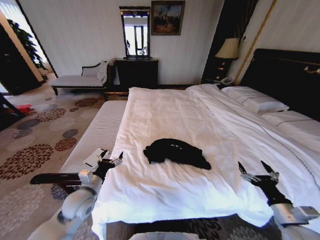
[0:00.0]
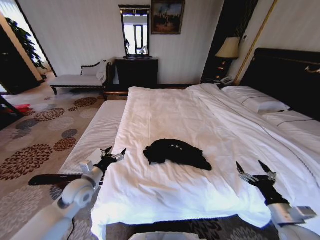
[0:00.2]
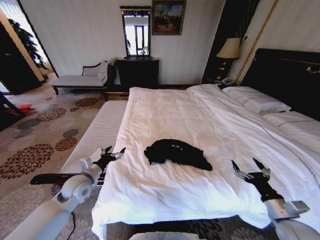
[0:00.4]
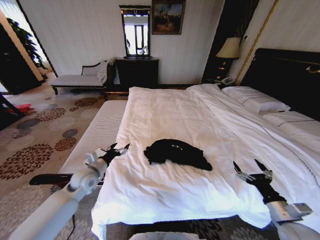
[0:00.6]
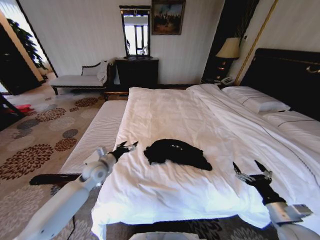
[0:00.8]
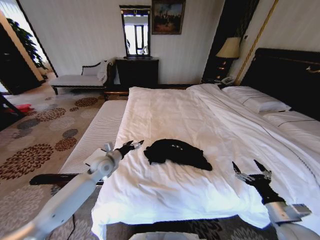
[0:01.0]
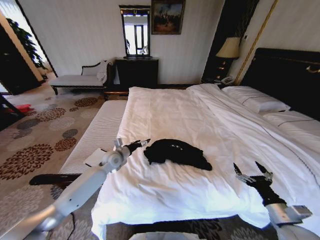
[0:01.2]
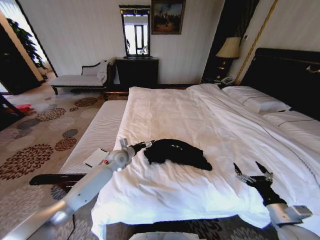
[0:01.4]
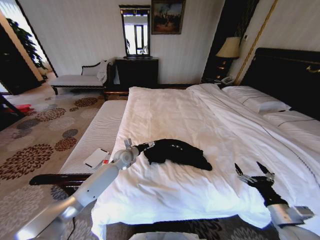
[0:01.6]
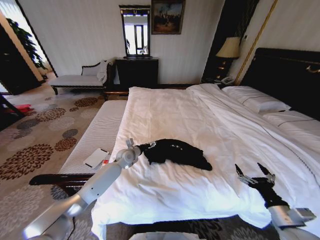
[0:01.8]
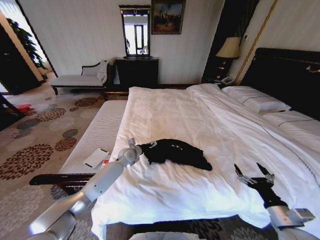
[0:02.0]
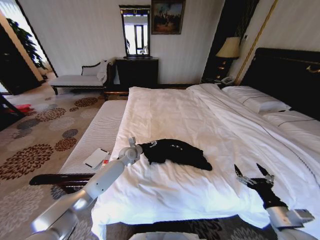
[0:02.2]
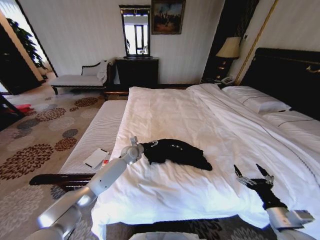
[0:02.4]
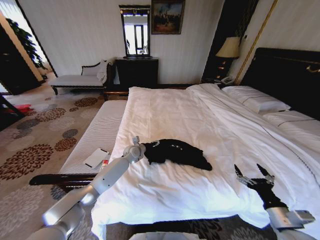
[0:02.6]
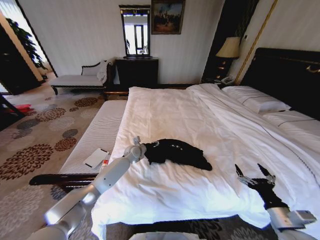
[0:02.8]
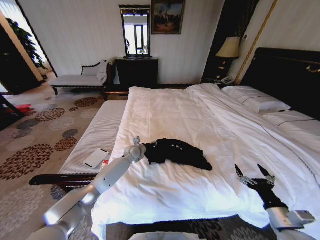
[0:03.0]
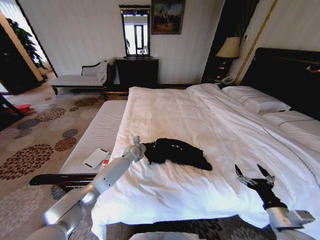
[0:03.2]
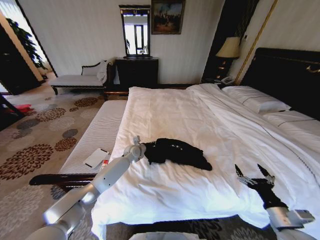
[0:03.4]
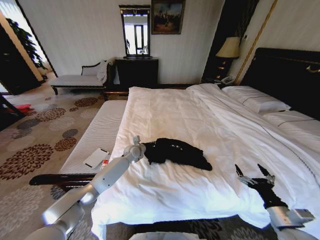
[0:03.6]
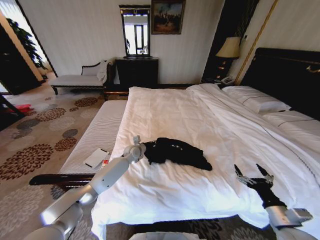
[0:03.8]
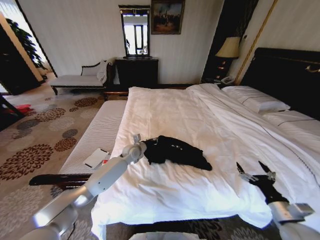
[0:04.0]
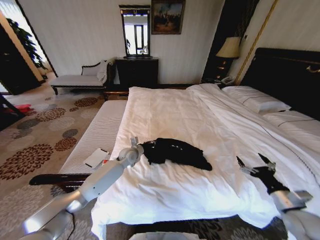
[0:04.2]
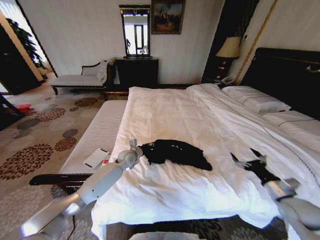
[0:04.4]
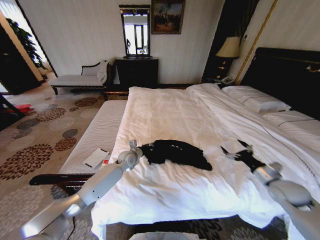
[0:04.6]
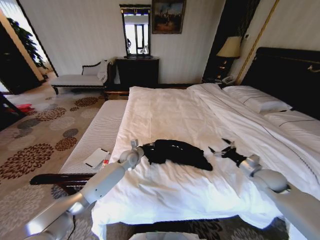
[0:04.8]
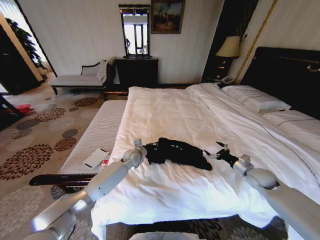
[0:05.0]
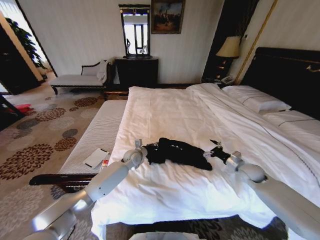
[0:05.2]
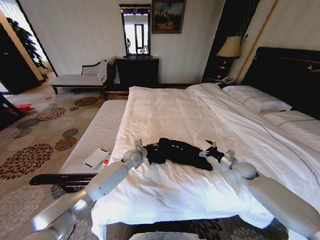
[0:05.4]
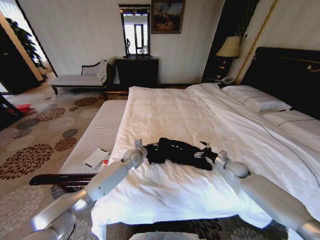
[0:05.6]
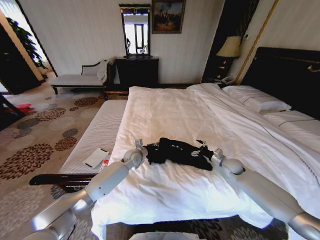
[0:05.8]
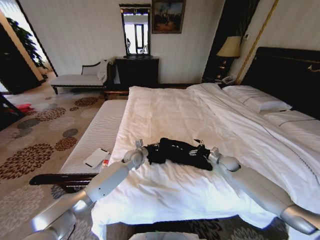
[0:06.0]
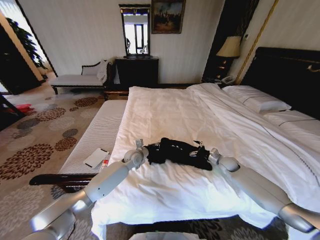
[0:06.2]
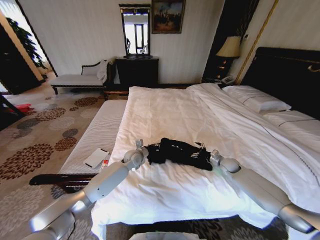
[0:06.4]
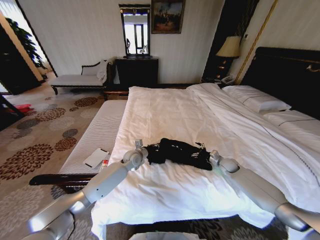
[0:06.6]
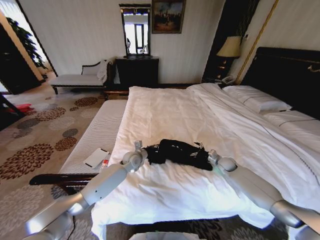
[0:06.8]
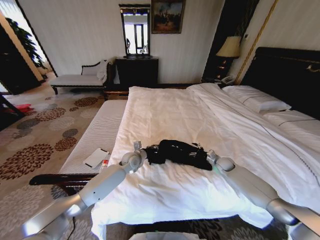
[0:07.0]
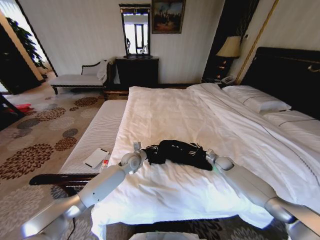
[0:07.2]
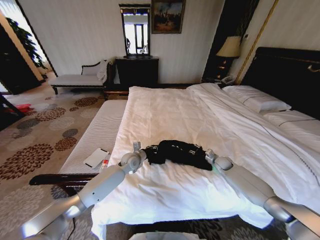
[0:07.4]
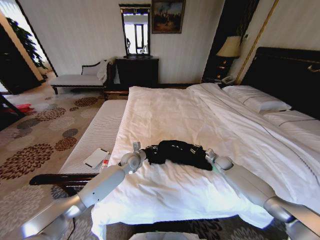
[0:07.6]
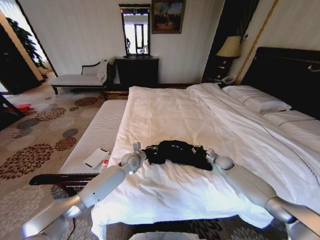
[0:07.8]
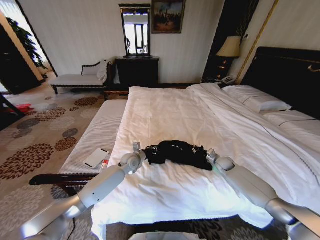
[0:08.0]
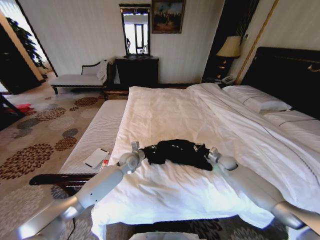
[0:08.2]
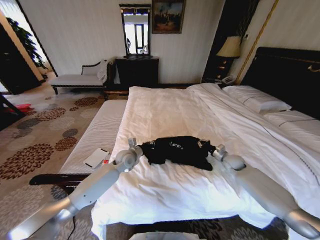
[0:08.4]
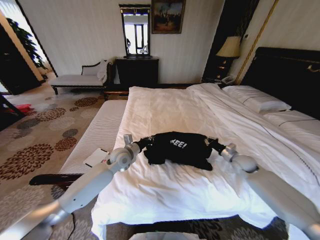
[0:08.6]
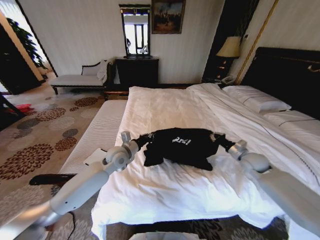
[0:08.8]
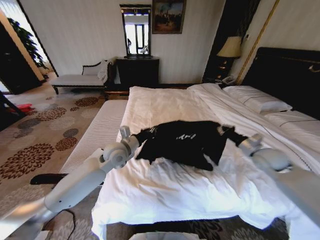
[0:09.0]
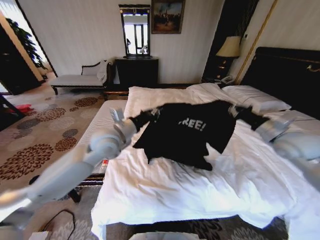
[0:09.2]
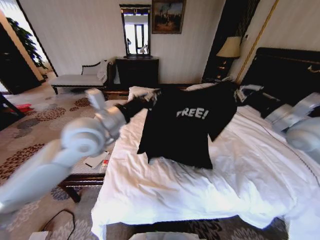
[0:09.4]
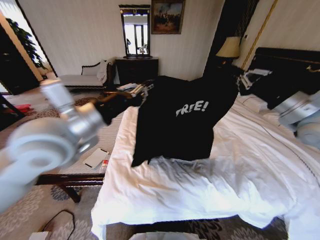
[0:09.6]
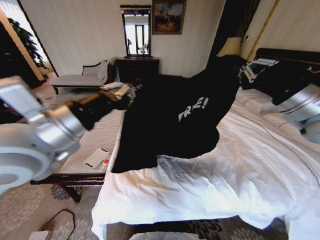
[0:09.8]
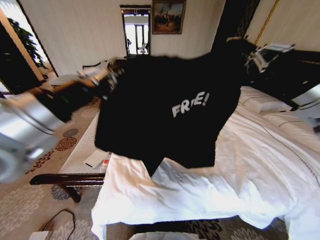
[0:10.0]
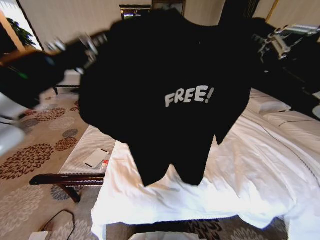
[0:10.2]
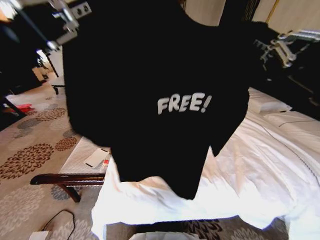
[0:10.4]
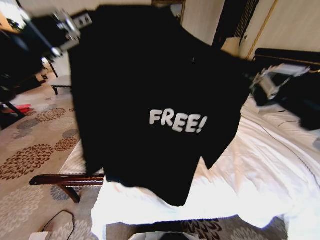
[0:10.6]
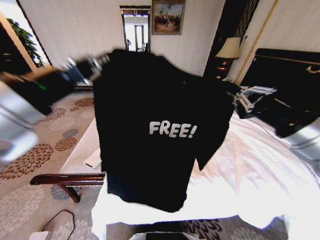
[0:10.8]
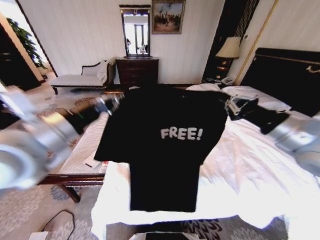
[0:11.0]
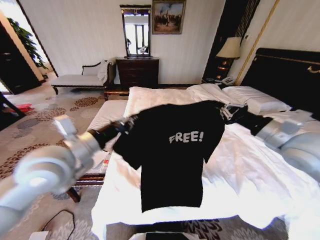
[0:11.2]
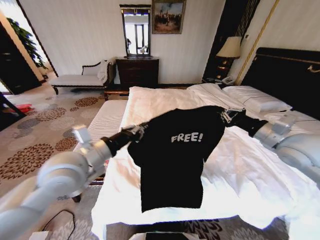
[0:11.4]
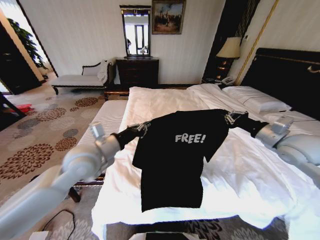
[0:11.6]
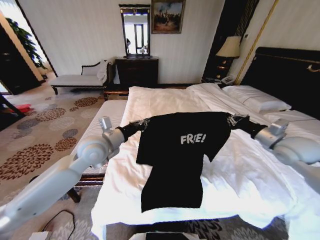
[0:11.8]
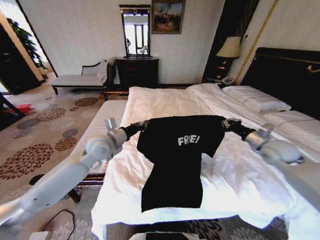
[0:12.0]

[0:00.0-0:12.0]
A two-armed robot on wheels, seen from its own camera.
Task of the whole recording: Fold the clothes on the bed.
0:00.0 to 0:01.6: The left gripper travels forward and to the right by approximately 25 cm.
0:01.6 to 0:03.0: The left gripper changes place by about 5 cm, and closes its fingers.
0:03.0 to 0:04.4: The left gripper changes place by roughly 5 cm. The right gripper goes some 10 cm forward and to the right.
0:04.4 to 0:06.0: The right gripper travels forward by approximately 25 cm.
0:06.0 to 0:07.6: The right gripper closes.
0:07.6 to 0:09.0: The left gripper is displaced upward by roughly 15 cm. Meanwhile the right gripper travels upward and backward by about 25 cm.
0:09.0 to 0:10.4: Both grippers move upward, backward and to the left, about 35 cm.
0:10.4 to 0:12.0: The left gripper travels downward and forward by some 35 cm. Meanwhile the right gripper travels downward, forward and to the right by approximately 30 cm.

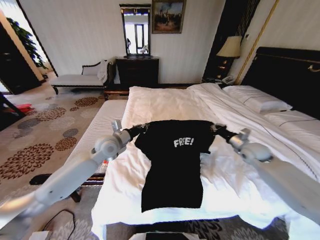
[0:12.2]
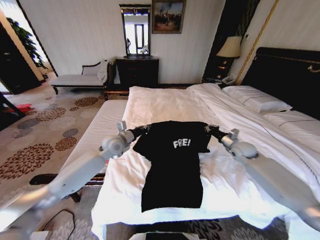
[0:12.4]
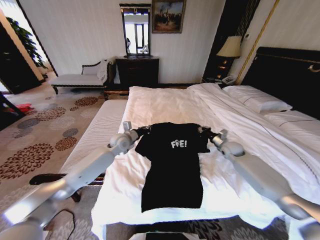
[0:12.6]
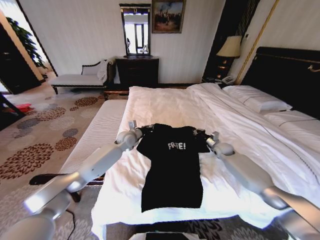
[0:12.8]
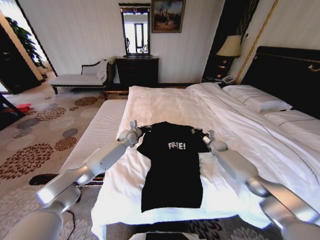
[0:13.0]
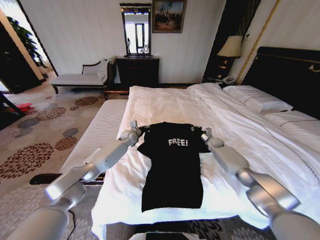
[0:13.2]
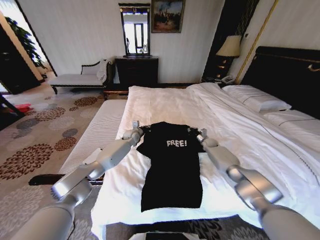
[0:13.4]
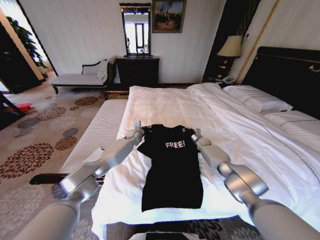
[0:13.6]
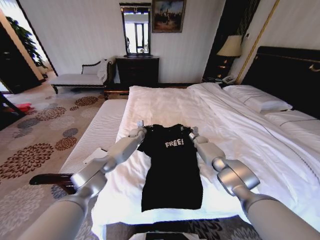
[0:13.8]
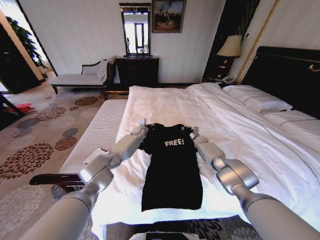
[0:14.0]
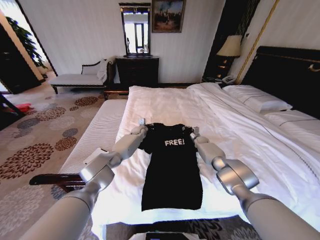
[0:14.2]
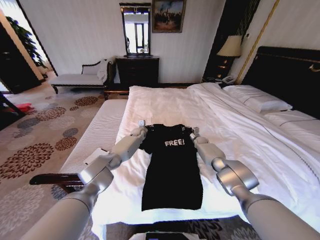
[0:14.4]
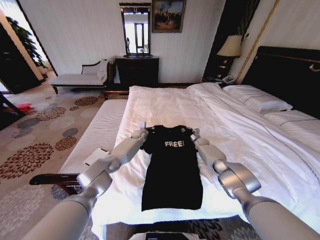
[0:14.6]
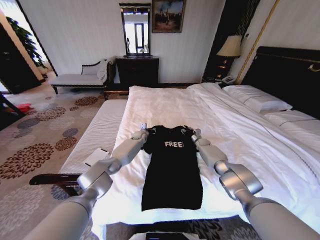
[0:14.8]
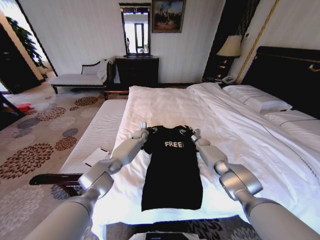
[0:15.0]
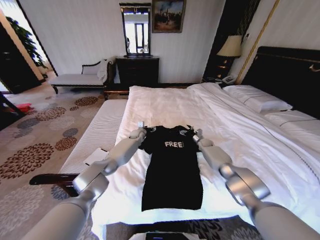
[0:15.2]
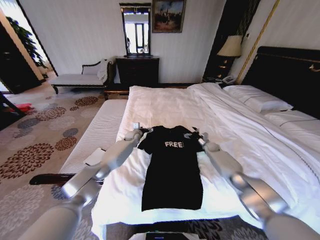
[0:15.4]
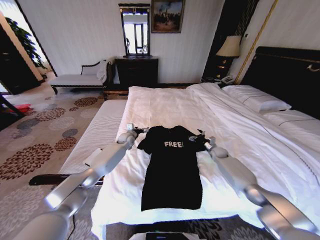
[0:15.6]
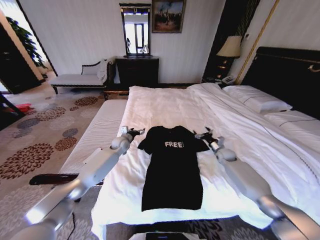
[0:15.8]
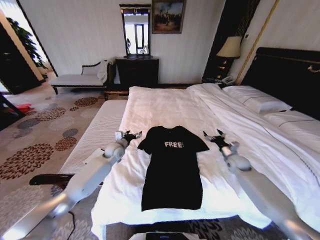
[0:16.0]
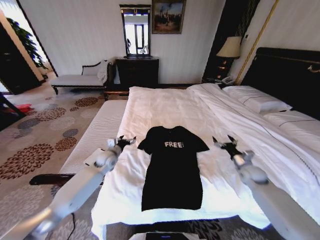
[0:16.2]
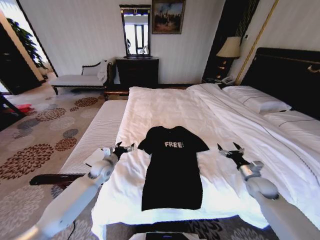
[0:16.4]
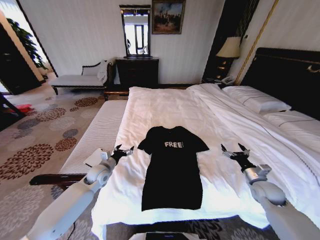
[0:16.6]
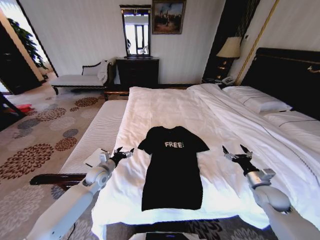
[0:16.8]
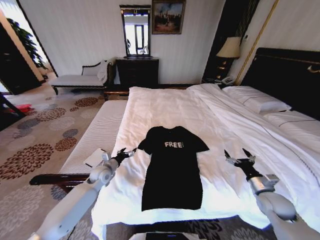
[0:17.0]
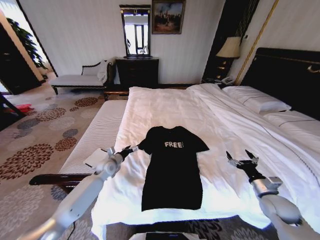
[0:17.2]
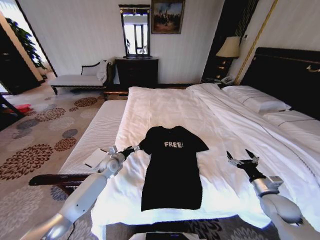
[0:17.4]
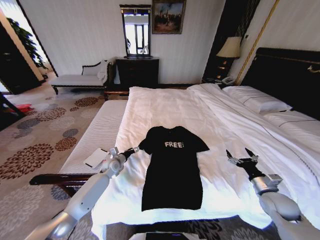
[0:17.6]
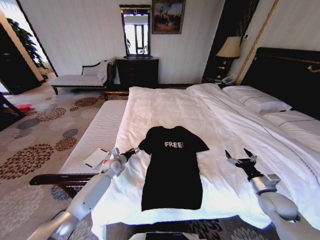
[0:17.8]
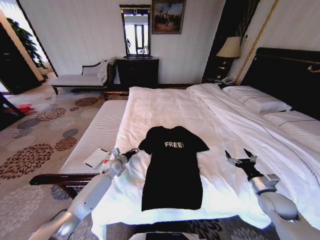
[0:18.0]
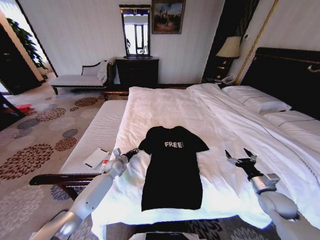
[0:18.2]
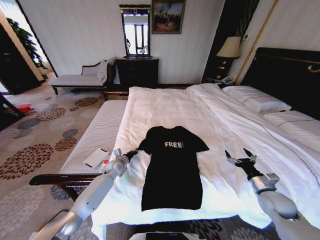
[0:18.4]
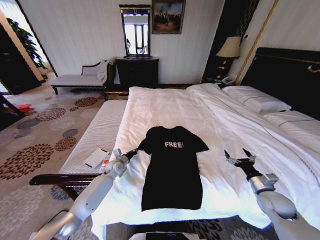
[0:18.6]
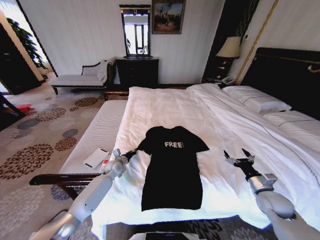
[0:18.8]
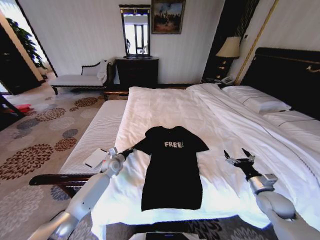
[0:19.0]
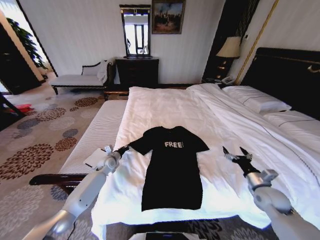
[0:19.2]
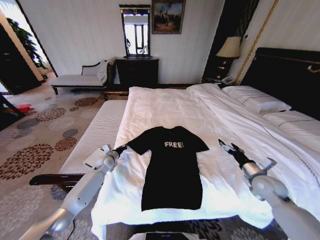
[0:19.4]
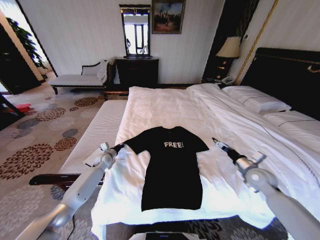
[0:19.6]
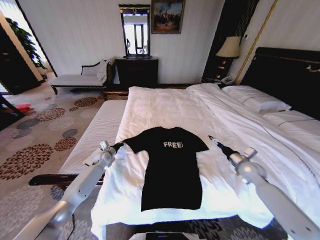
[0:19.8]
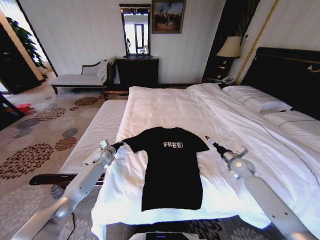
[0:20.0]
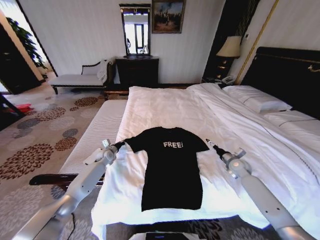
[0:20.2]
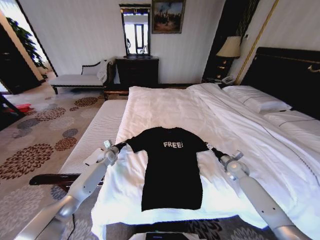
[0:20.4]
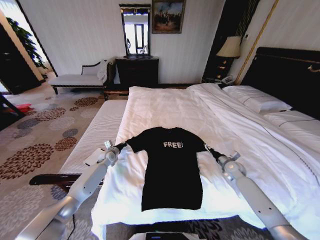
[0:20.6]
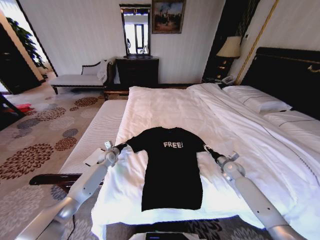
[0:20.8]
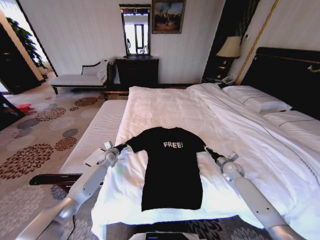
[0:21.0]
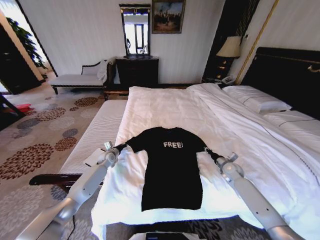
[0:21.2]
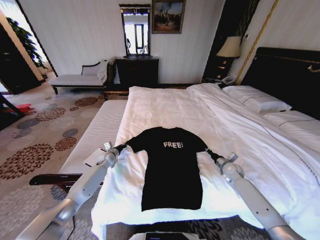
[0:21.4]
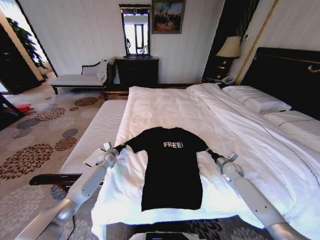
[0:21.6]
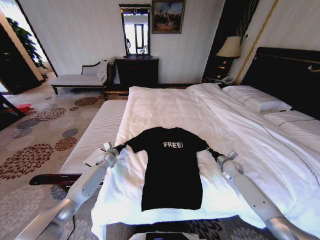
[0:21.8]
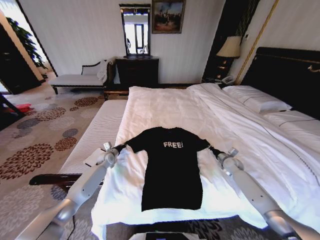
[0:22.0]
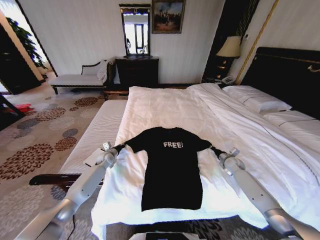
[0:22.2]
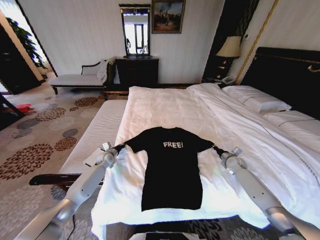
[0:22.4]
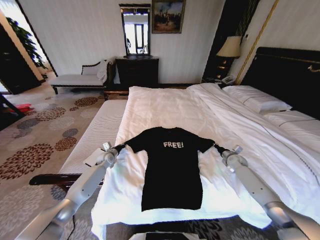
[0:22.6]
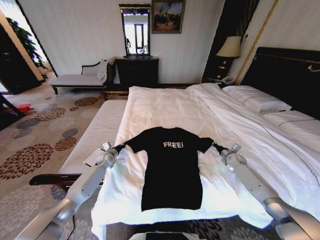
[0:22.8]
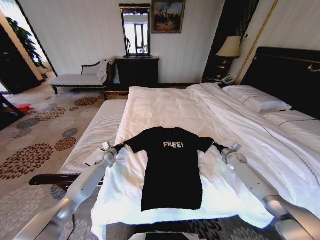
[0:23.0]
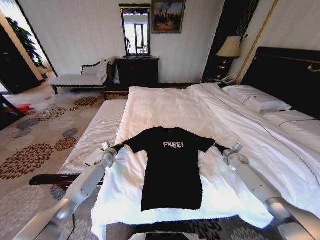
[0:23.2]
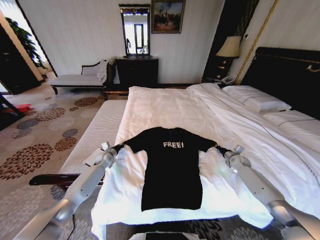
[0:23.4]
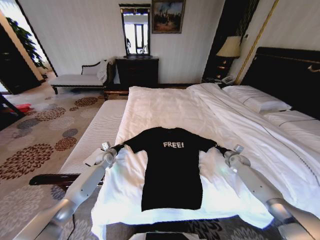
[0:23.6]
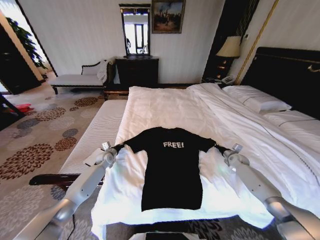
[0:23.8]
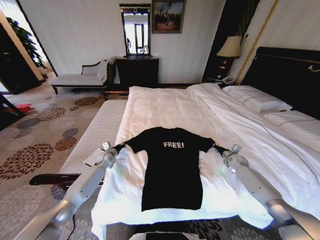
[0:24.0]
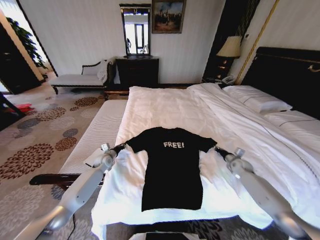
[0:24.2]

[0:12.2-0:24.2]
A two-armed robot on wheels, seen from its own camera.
Task of the whole recording: Fold the clothes on the bed.
0:12.2 to 0:13.8: The left gripper goes approximately 25 cm forward and downward. The right gripper heads forward, downward and to the left, covering about 30 cm.
0:13.8 to 0:15.2: The left gripper opens. Meanwhile the right gripper opens its fingers.
0:15.2 to 0:16.6: The left gripper travels backward and to the left by about 30 cm, while the right gripper moves backward, approximately 35 cm.
0:16.6 to 0:18.2: The left gripper is displaced forward and downward by about 10 cm, and closes up.
0:18.2 to 0:19.8: The left gripper moves to the left, about 5 cm, and closes; the right gripper shifts approximately 10 cm forward.
0:19.8 to 0:21.2: The right gripper moves downward, roughly 10 cm, and closes.
0:21.2 to 0:22.6: The right gripper travels to the right and forward by about 10 cm.
0:22.6 to 0:24.2: The grippers stay close to where they were, moving slightly.
